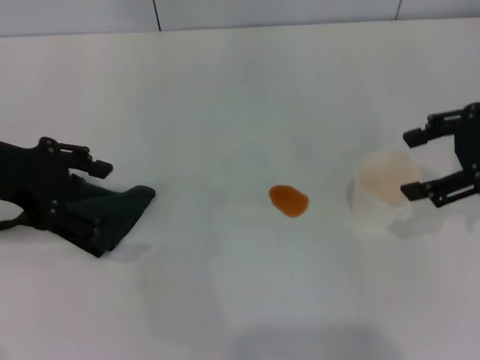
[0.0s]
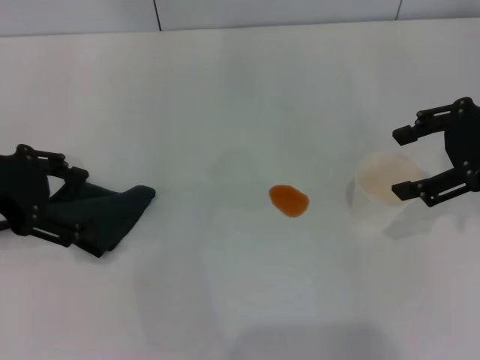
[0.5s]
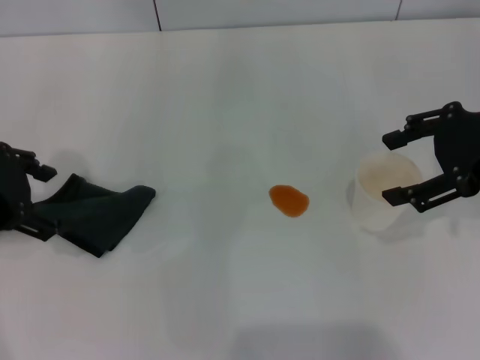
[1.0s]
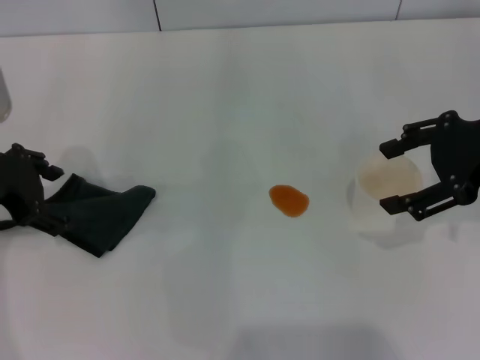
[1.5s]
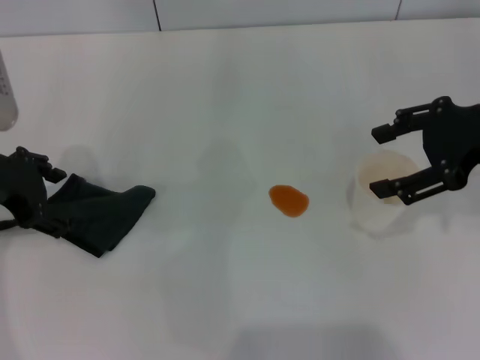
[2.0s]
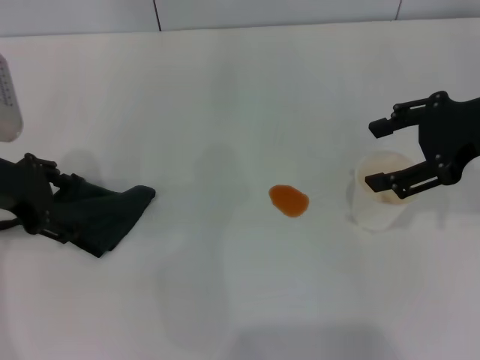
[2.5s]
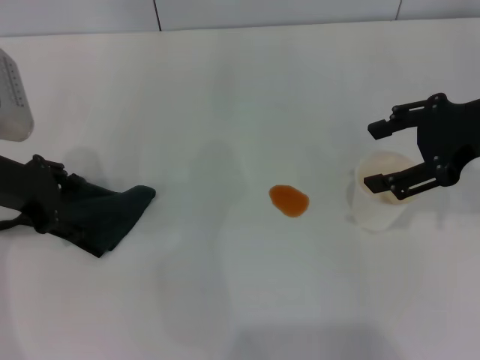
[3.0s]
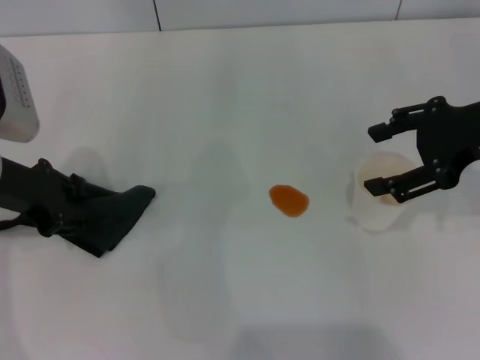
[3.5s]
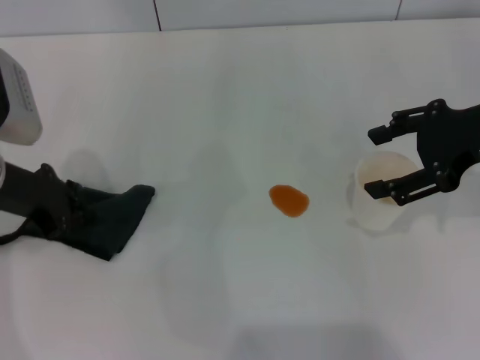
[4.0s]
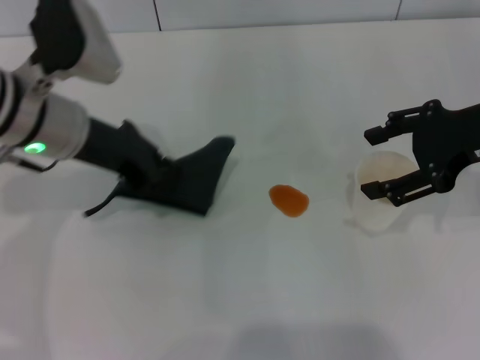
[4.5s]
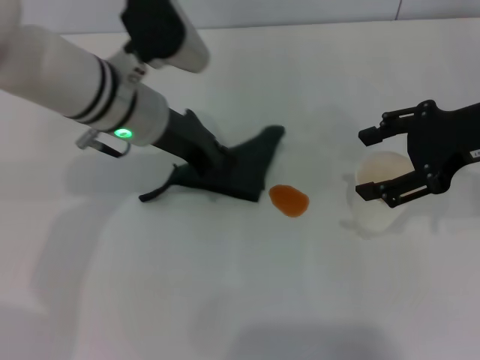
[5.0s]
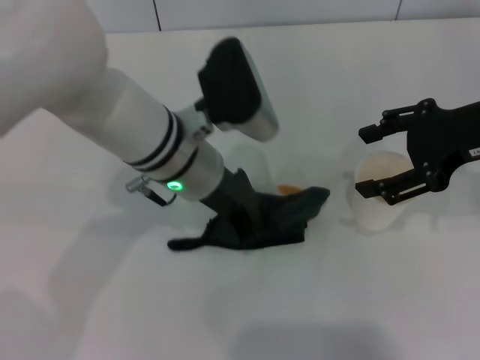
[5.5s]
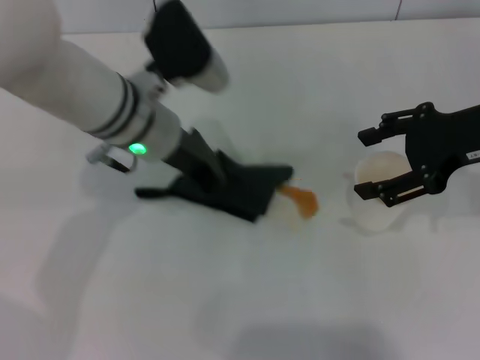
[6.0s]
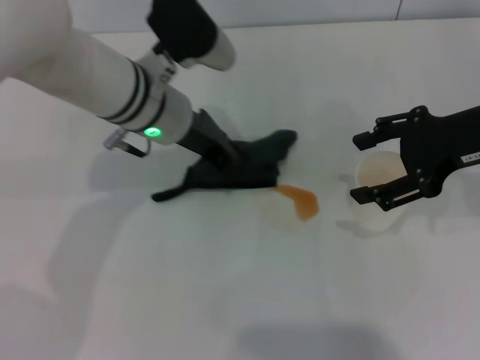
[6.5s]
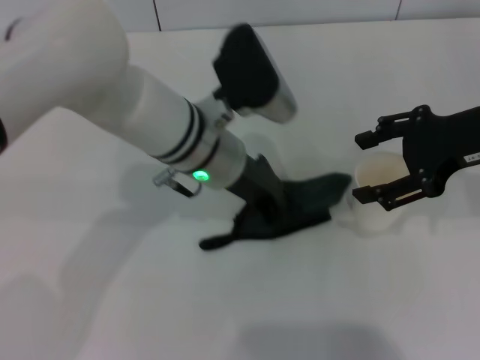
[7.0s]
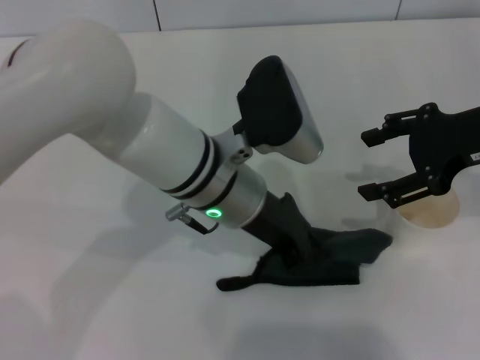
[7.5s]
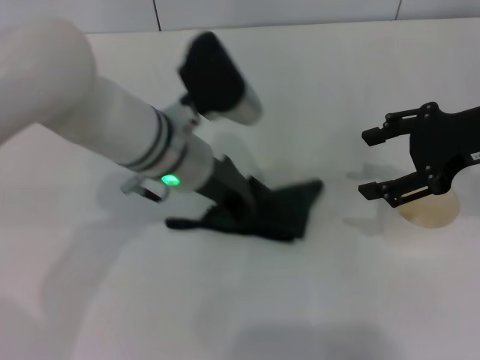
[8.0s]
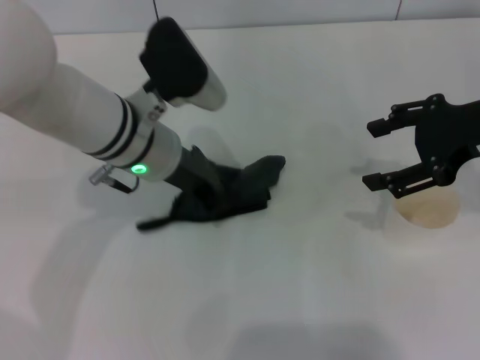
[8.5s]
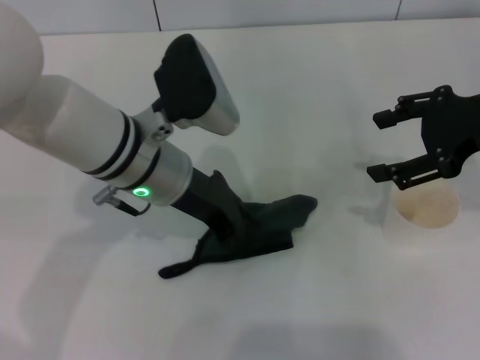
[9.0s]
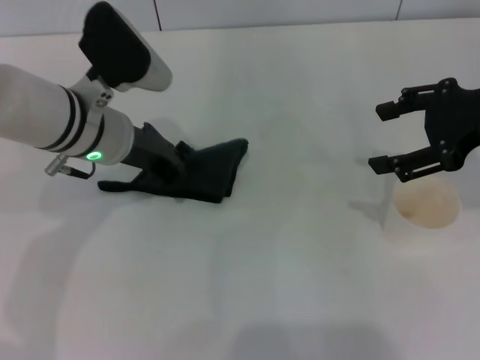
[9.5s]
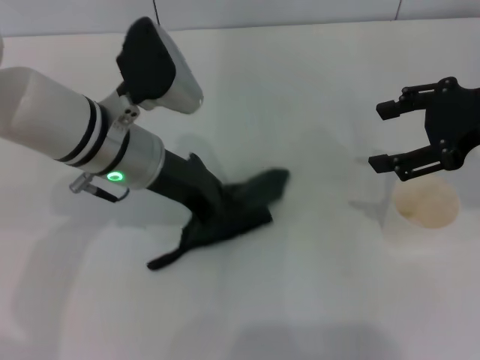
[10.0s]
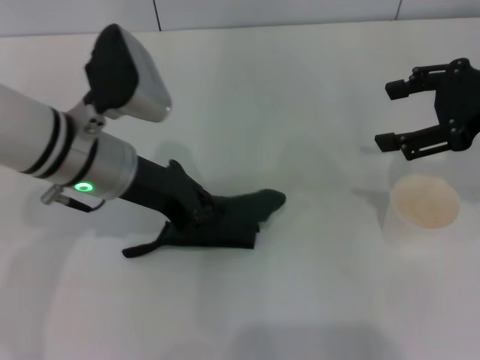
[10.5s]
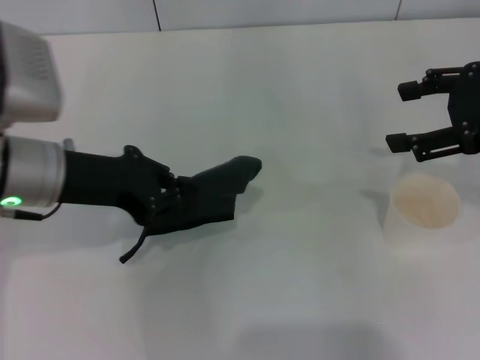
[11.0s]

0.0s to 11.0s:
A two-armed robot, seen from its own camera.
Step, 0.0s to 3.5s: Grasp the rag with the left gripper.
Step, 4.0s to 8.5s: Wipe the stains off the table with the left gripper.
2.0s to 3.5s: The grippers move only a little.
3.5s to 5.5s: The left gripper heads to the right, covering roughly 20 cm, and closes up.
7.5s to 9.0s: The left gripper goes some 5 cm to the left.
9.0s to 11.0s: The left gripper moves to the left, about 10 cm.

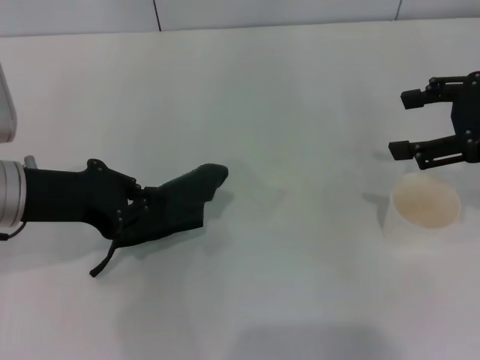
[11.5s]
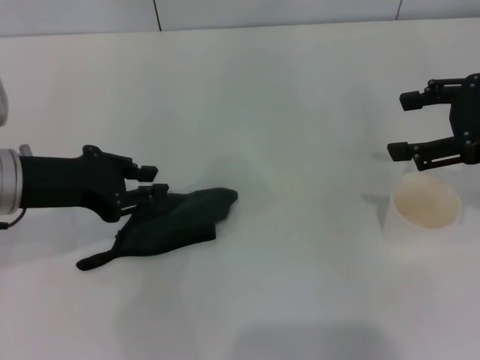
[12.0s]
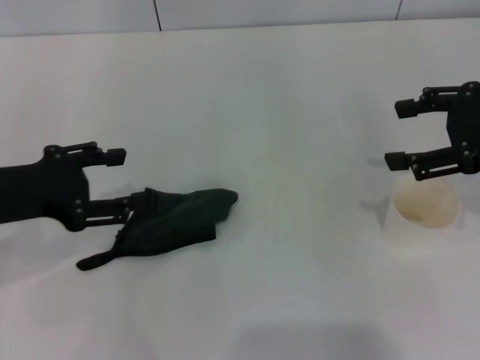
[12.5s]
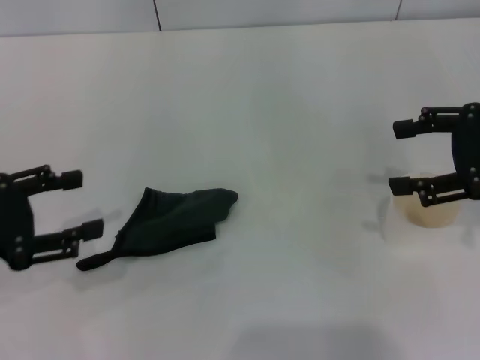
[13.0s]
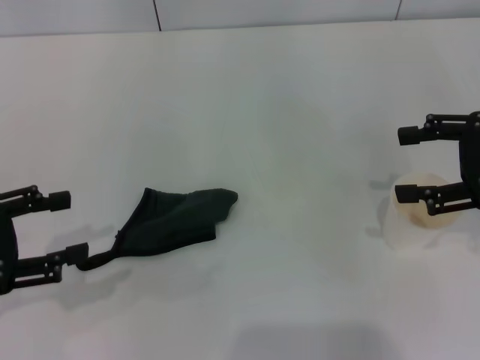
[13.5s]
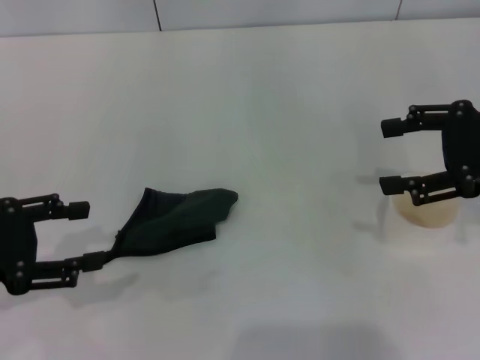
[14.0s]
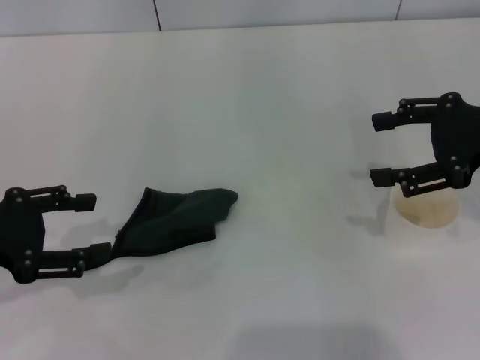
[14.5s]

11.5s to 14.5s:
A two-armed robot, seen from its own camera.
11.5s to 13.0s: The left gripper is displaced to the left and backward by roughly 10 cm, and opens its fingers.
13.0s to 14.5s: The grippers make only small movements.

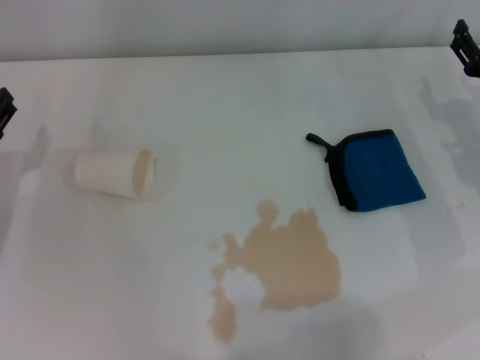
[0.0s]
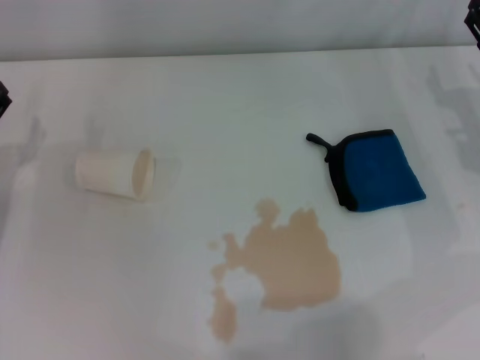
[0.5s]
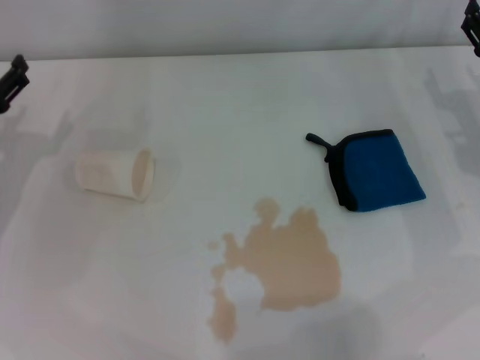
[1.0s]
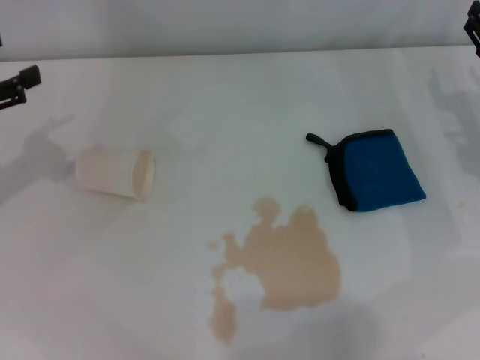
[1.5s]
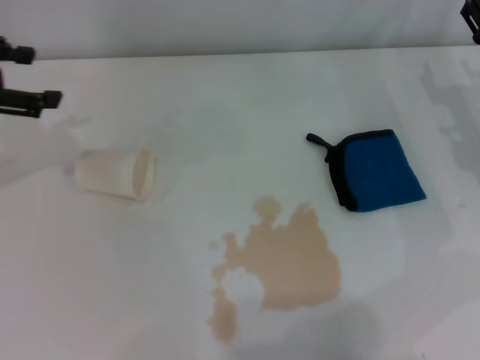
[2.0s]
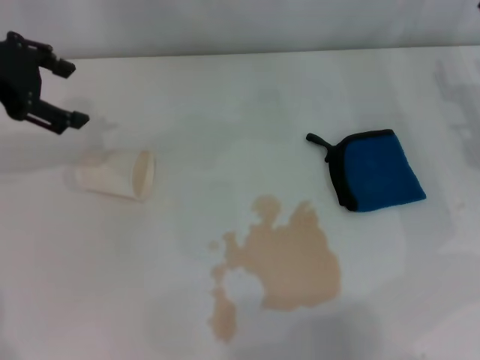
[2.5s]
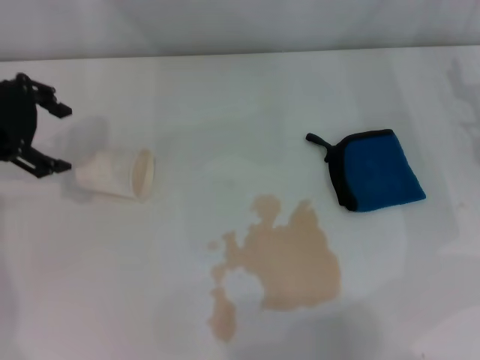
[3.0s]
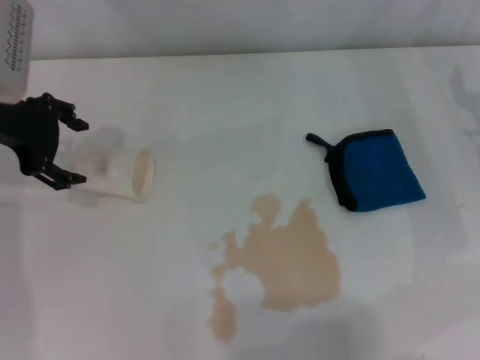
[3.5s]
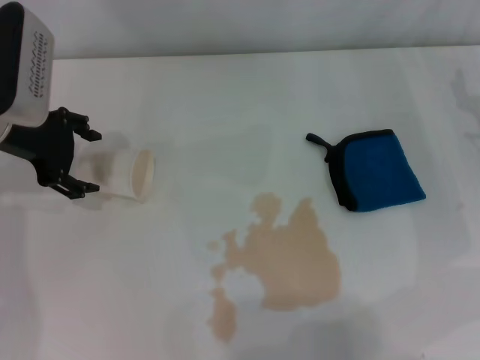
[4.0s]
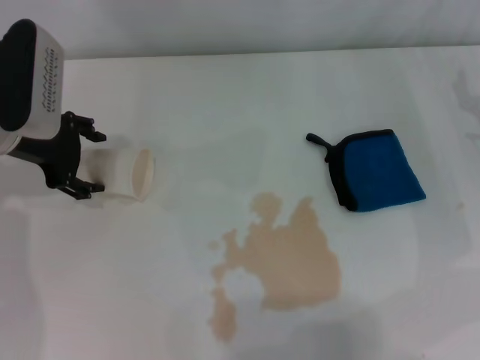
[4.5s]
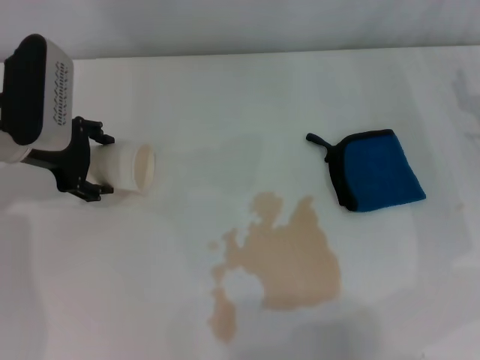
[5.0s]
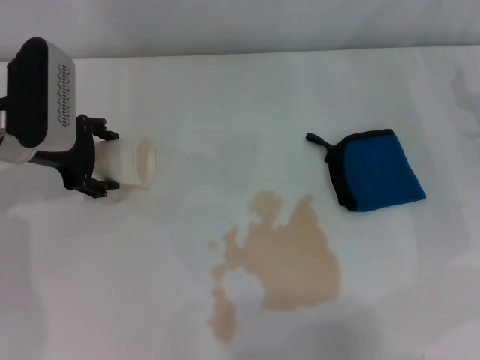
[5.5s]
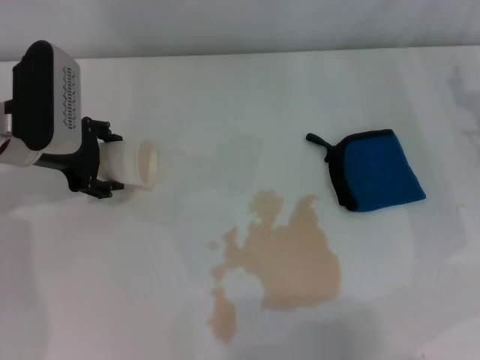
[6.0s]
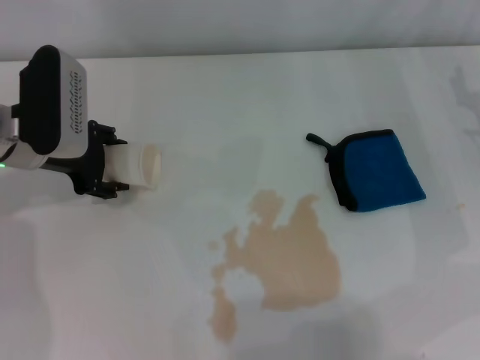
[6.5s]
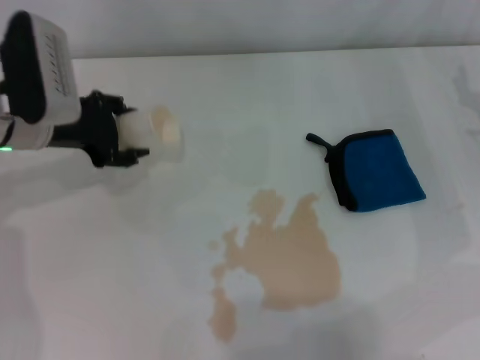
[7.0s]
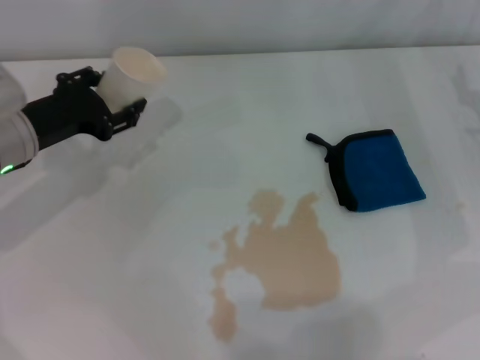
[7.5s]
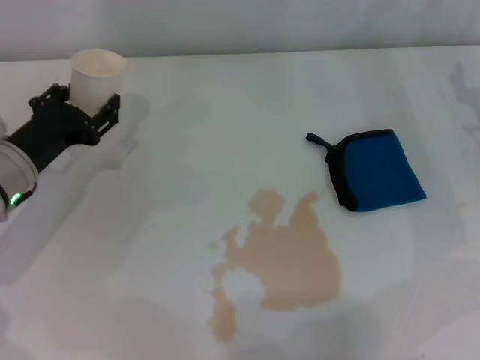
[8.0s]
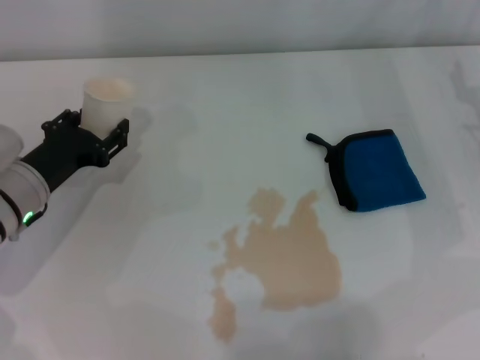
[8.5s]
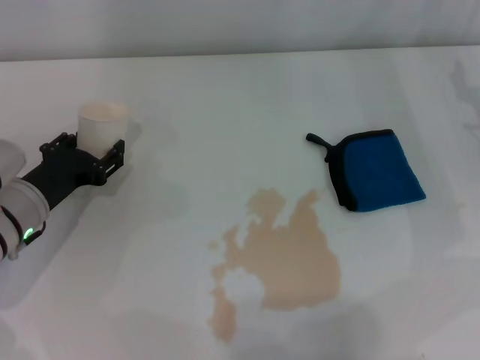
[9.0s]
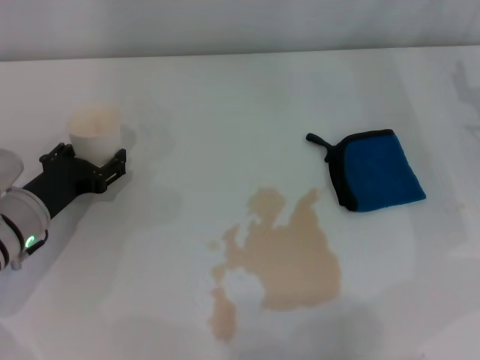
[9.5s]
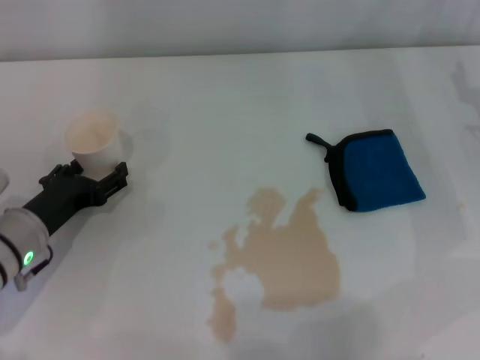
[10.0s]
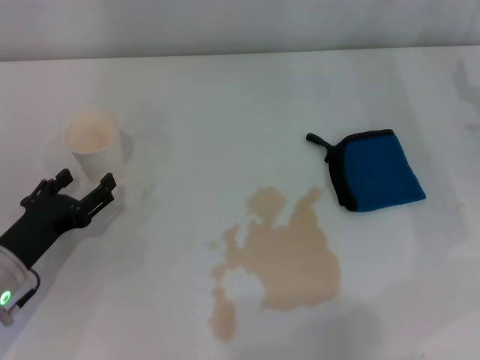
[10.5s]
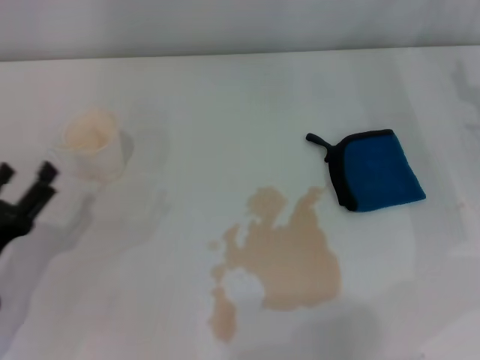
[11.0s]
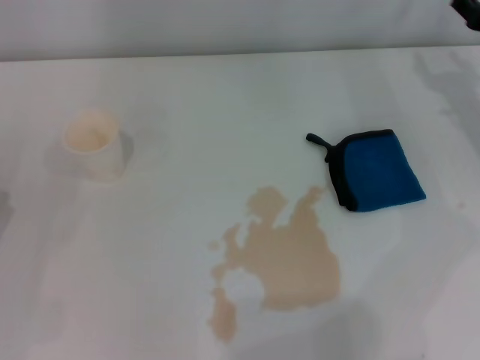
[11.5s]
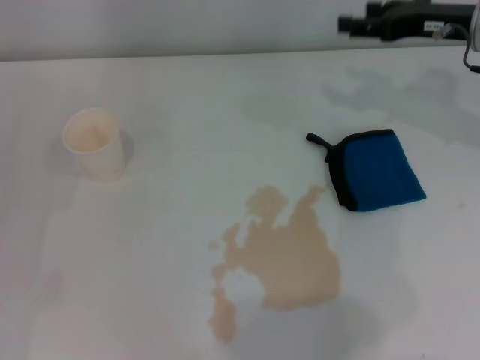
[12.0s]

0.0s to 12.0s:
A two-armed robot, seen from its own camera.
Step, 0.0s to 6.5s: Grasp the paper cup with the left gripper.
Step, 7.0s to 9.5s: Stand the paper cup upright with the left gripper.
0.0s to 2.0s: The left gripper goes about 20 cm upward.
2.0s to 4.0s: The left gripper goes about 10 cm to the right and downward.
4.0s to 6.0s: There are only small adjustments of the grippers.
6.0s to 8.0s: The left gripper travels downward and backward by about 10 cm, and closes.
8.0s to 10.0s: The left gripper changes place by approximately 5 cm, and opens.
10.0s to 12.0s: The left gripper heads to the left and backward, covering roughly 15 cm; the right gripper shifts roughly 10 cm upward and forward.
